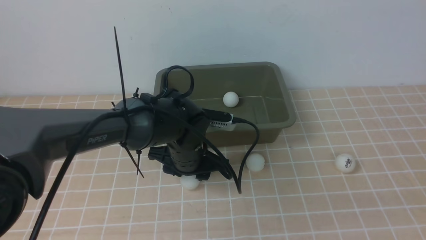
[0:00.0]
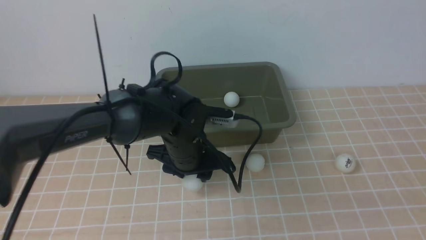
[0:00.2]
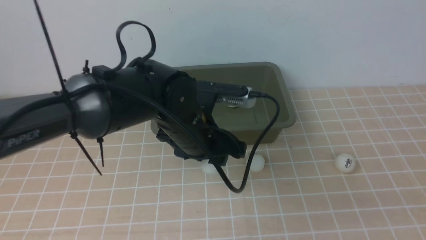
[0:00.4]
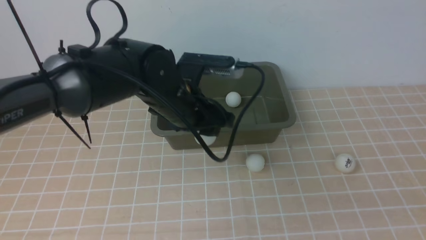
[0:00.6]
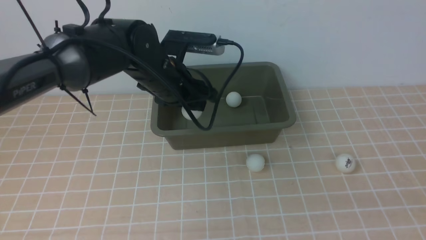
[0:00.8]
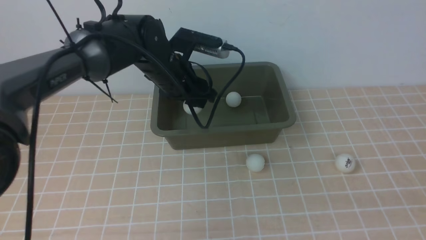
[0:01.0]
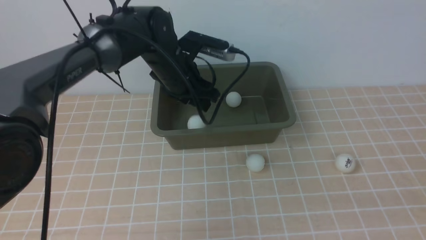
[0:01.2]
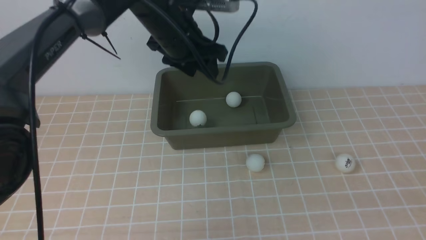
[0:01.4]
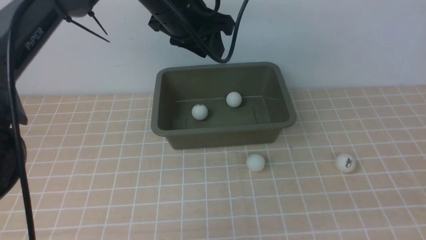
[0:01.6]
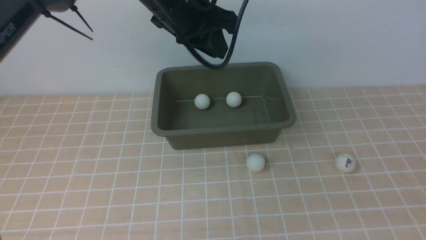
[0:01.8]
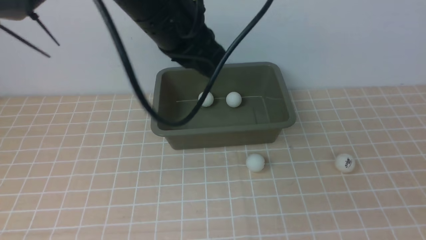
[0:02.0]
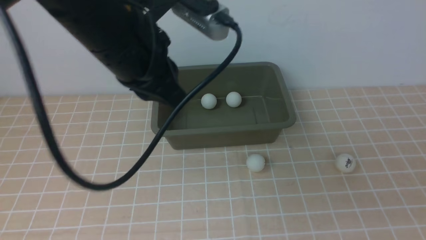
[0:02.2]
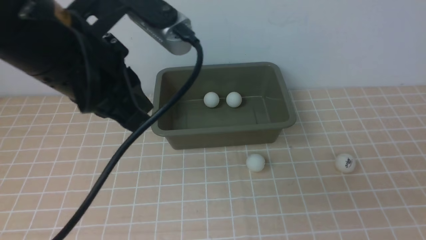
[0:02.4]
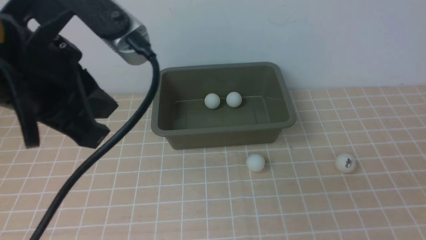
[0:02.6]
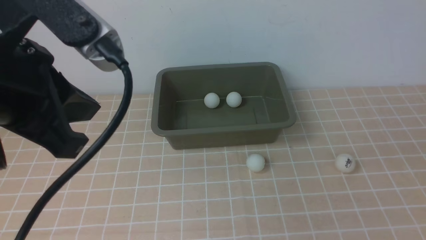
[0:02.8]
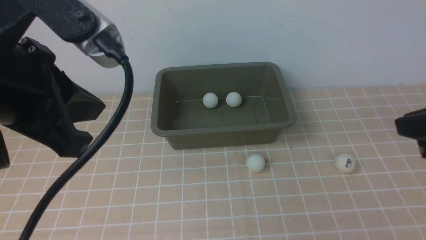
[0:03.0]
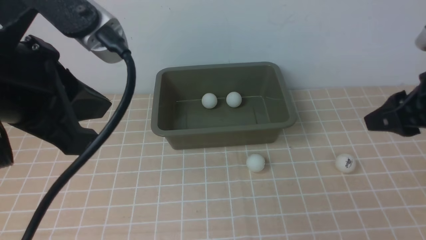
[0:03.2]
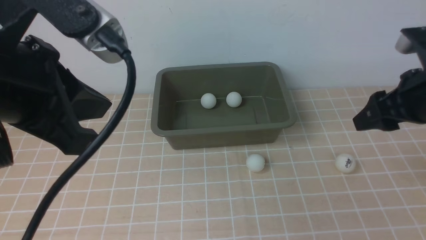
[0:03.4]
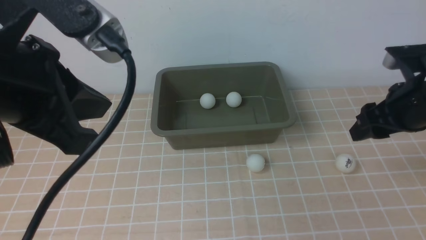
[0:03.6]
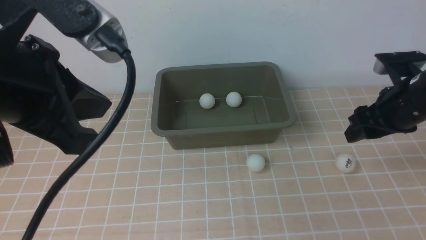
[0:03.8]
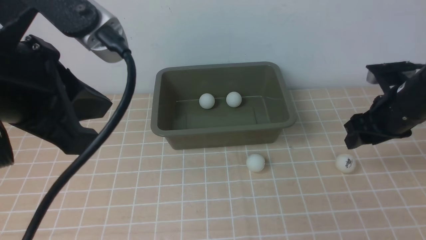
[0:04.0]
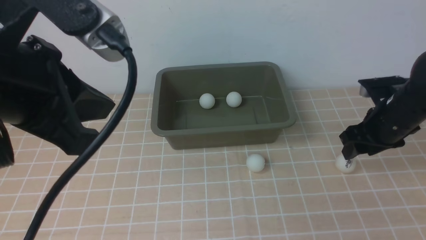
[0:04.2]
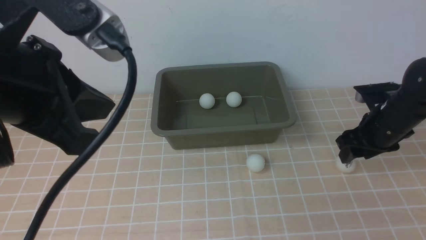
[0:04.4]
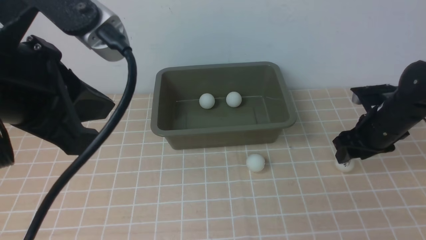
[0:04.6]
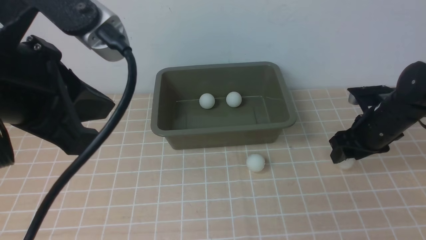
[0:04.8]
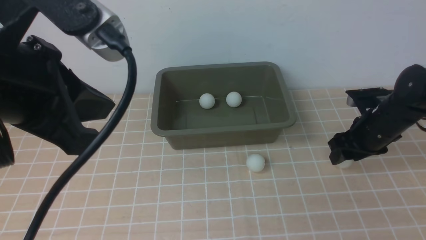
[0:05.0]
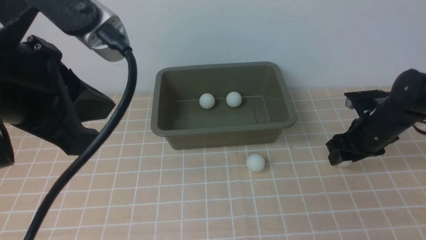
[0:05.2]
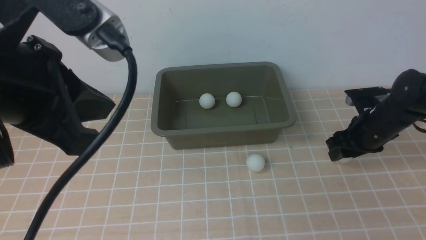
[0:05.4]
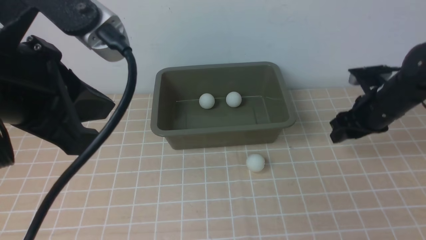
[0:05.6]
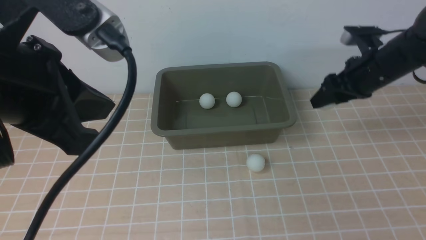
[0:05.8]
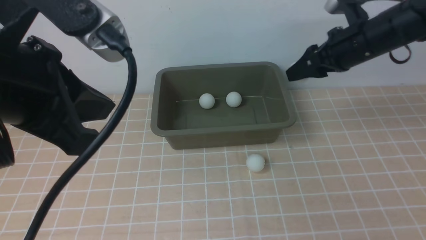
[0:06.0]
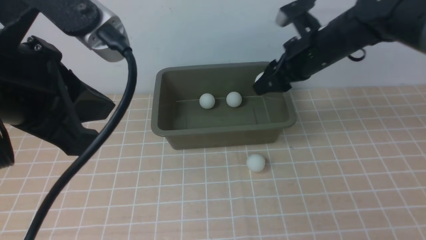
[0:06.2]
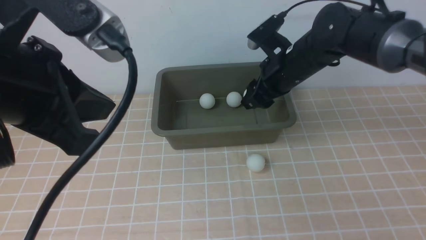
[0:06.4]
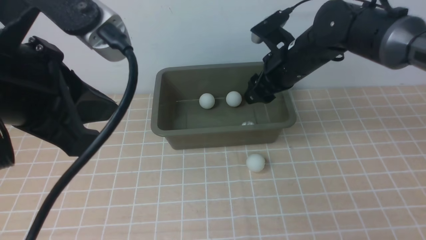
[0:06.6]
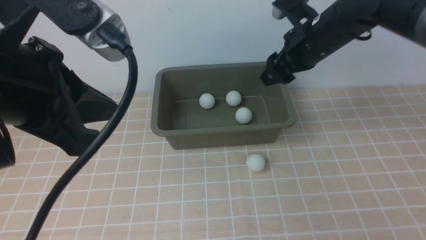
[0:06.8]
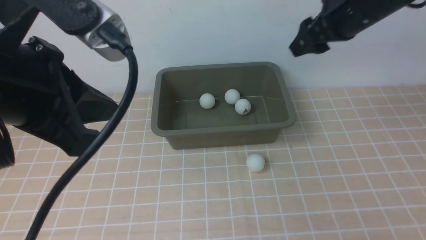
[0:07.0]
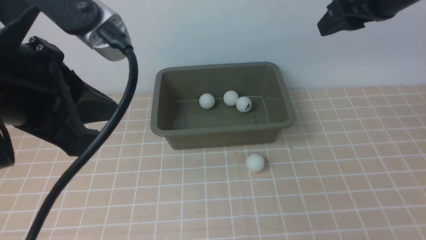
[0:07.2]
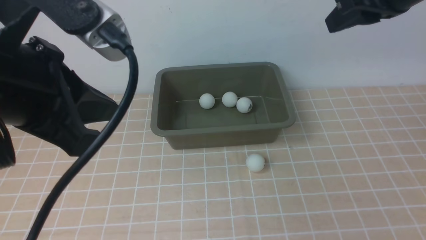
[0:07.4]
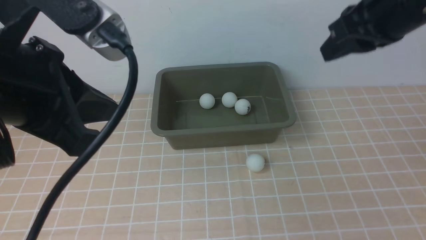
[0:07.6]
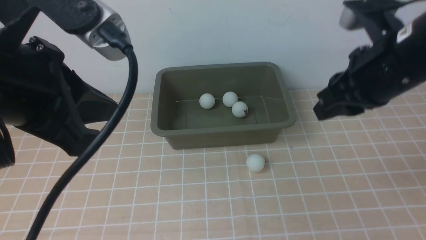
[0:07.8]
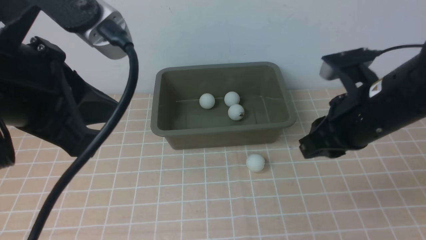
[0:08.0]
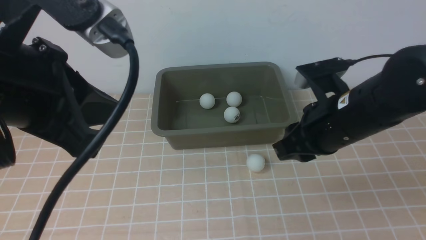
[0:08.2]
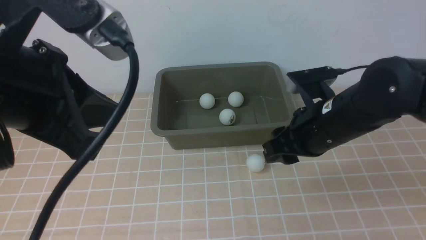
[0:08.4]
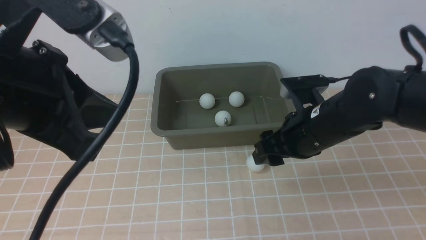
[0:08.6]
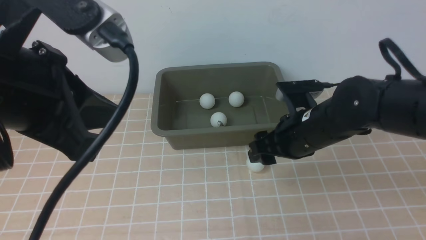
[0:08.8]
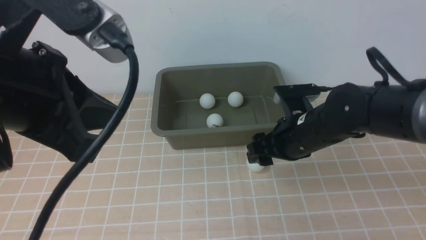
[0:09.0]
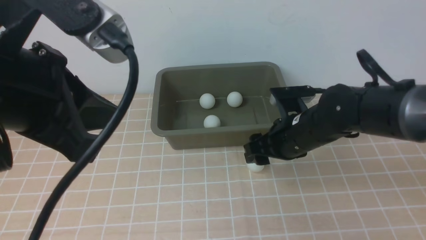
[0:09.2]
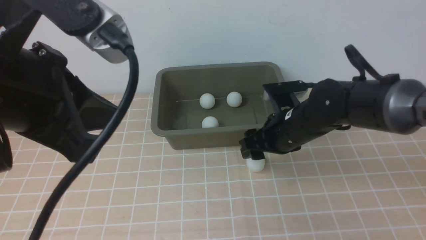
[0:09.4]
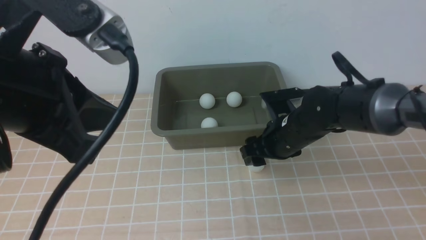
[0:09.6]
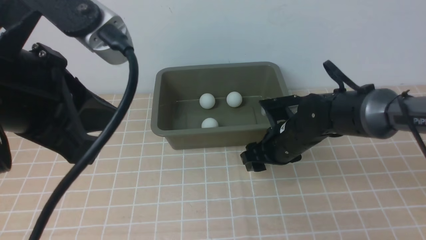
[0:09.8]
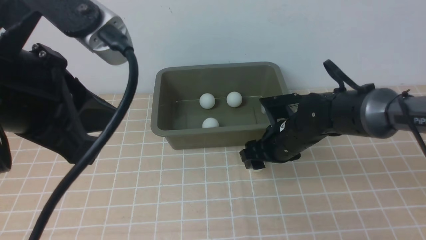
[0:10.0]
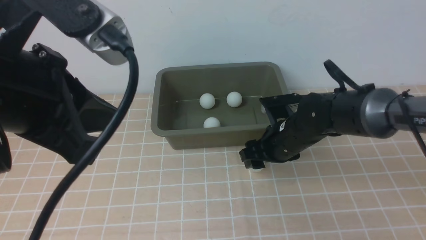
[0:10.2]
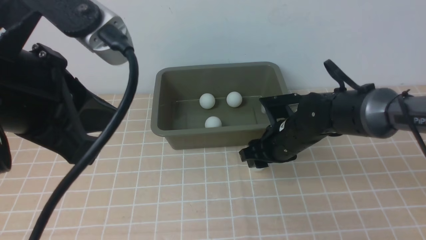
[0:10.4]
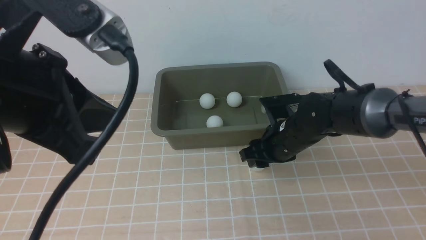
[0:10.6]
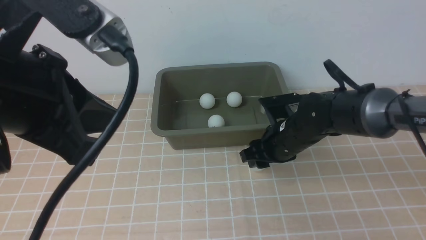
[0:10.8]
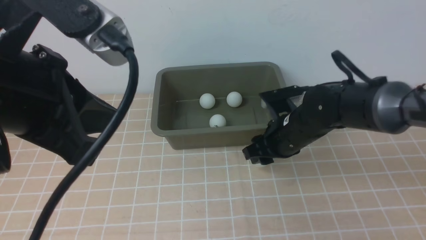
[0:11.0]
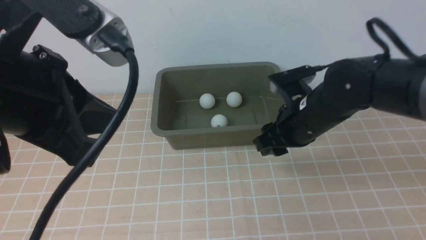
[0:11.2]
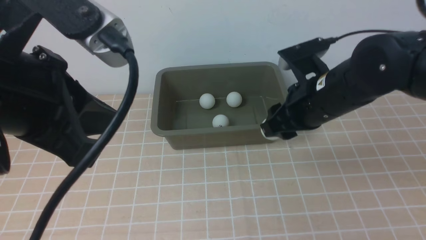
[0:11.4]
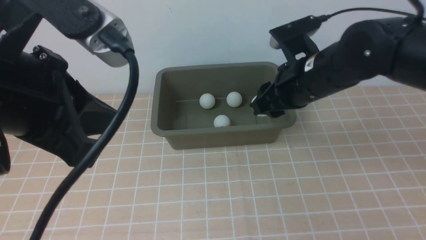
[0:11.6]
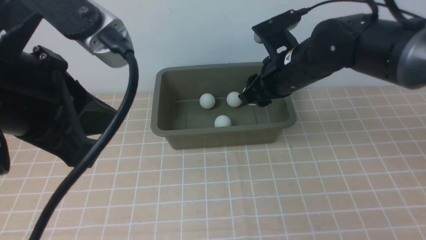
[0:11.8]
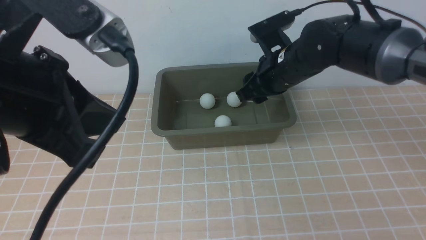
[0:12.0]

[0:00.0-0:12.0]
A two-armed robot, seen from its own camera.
Step, 0.4 to 1.4 s: use the left arm to put the table tennis ball into the box.
Step, 1.6 to 5.6 s: use the right arm to clamp the table tennis ball closest to it.
Step, 5.8 to 6.8 s: use the right arm to put the table tennis ball into the box.
Step, 7.0 to 11.0 s: use the right arm to clamp the table tennis ball closest to it.
0.0 to 1.6 s: The left gripper is displaced upward by roughly 20 cm.
1.6 to 3.0 s: The right gripper travels forward by about 20 cm, while the left gripper shifts about 25 cm backward and to the left, and closes its fingers.
3.0 to 4.4 s: The right gripper moves forward and downward, some 25 cm, and opens.
4.4 to 6.0 s: The right gripper travels upward, to the left and forward by some 15 cm.
6.0 to 7.6 s: The right gripper goes some 15 cm backward and upward, and closes up.
7.6 to 9.0 s: The right gripper moves downward, about 20 cm, and opens up.
9.0 to 10.4 s: The right gripper changes place by roughly 5 cm.
10.4 to 12.0 s: The right gripper travels upward by about 10 cm.

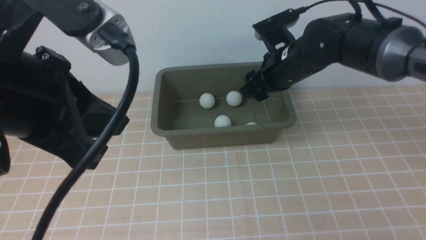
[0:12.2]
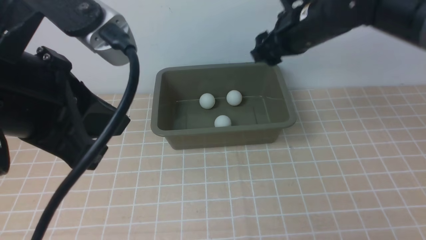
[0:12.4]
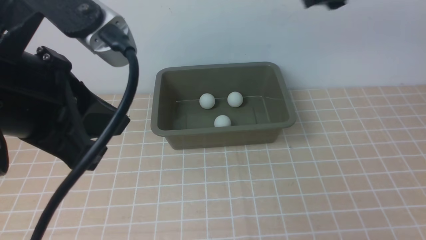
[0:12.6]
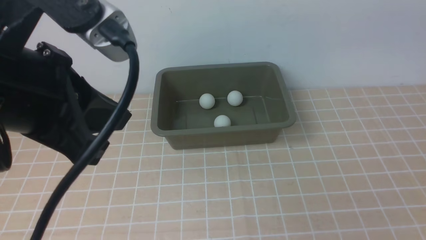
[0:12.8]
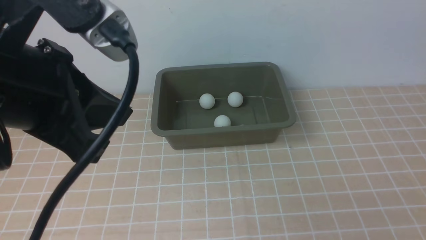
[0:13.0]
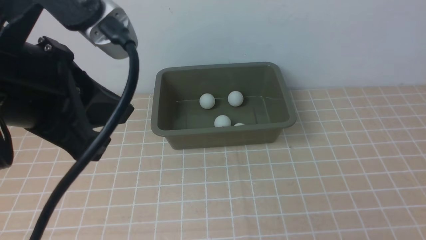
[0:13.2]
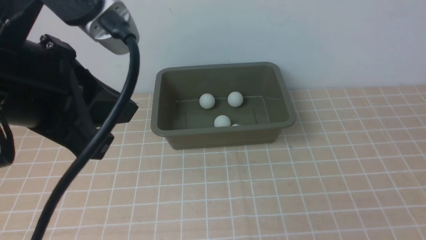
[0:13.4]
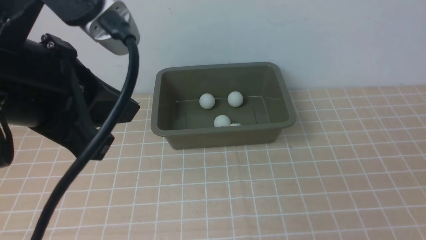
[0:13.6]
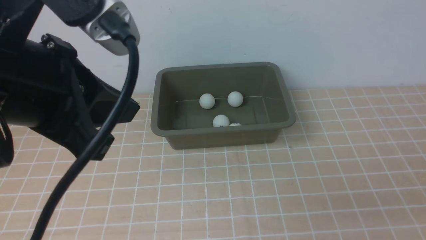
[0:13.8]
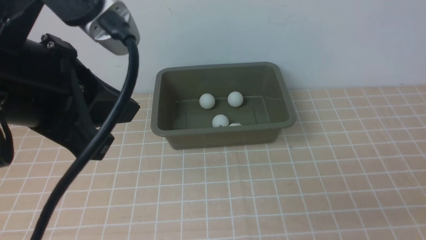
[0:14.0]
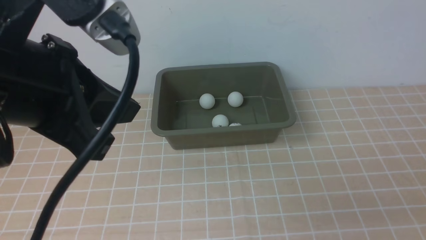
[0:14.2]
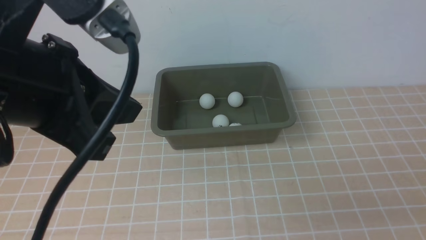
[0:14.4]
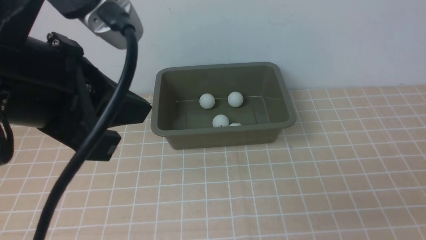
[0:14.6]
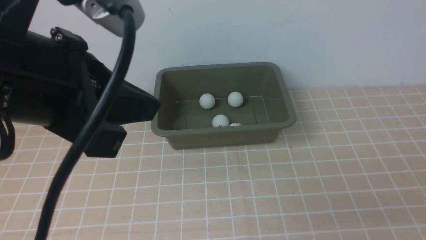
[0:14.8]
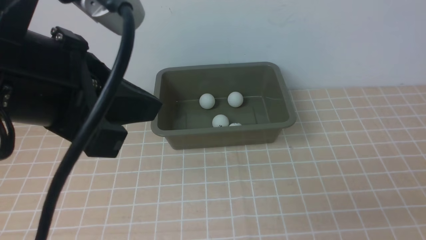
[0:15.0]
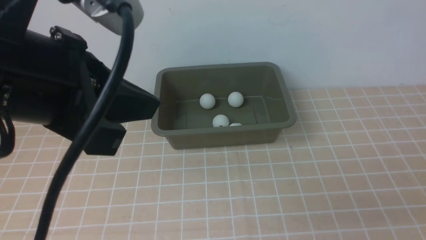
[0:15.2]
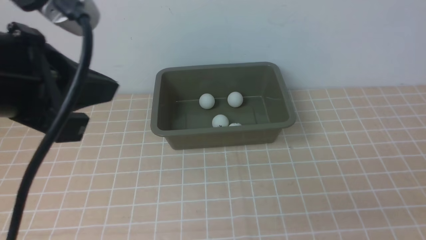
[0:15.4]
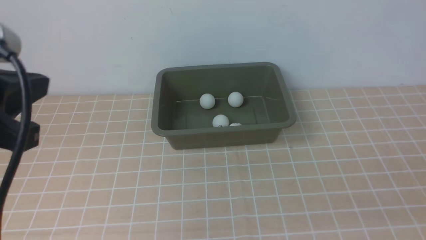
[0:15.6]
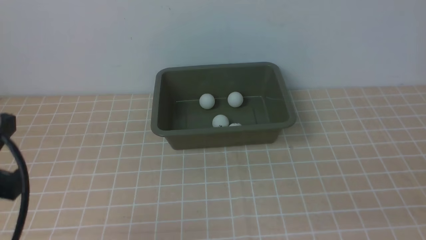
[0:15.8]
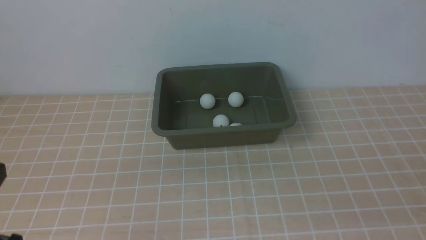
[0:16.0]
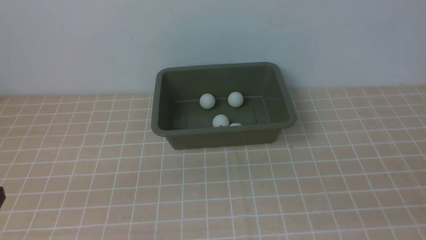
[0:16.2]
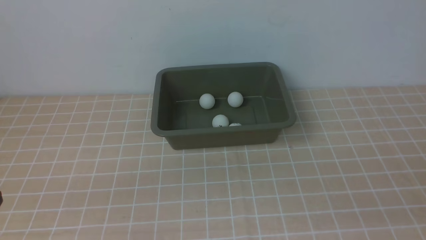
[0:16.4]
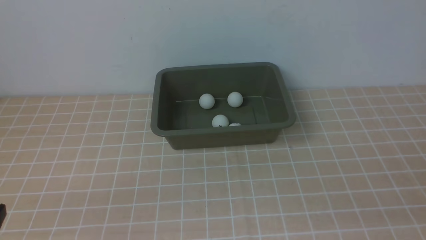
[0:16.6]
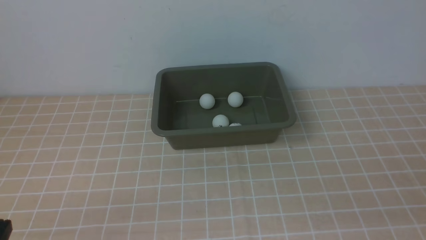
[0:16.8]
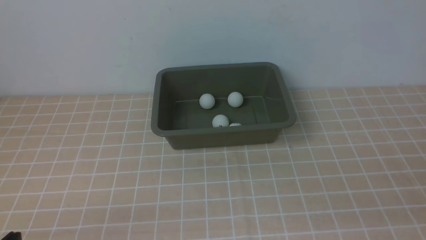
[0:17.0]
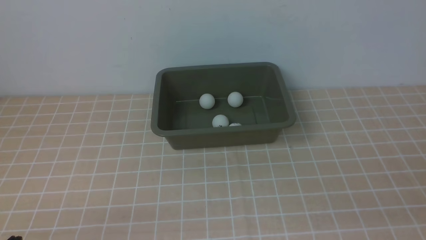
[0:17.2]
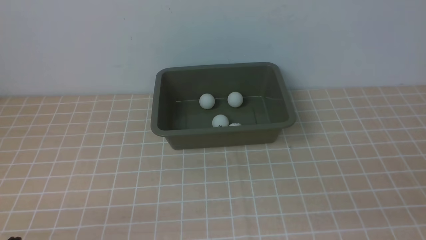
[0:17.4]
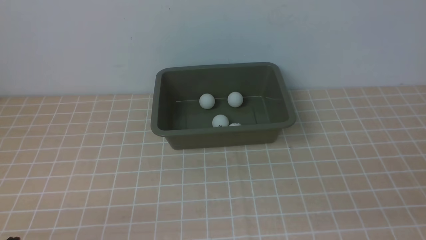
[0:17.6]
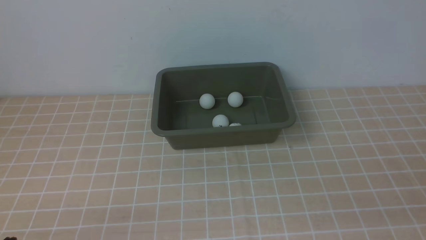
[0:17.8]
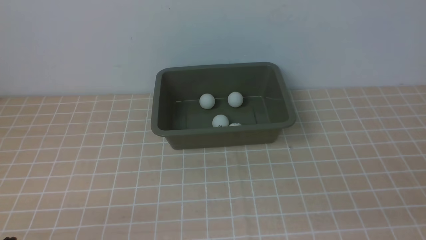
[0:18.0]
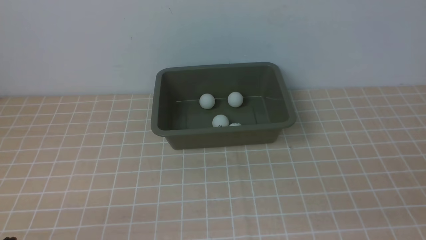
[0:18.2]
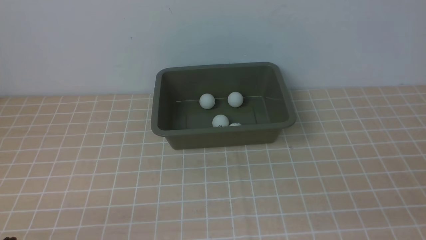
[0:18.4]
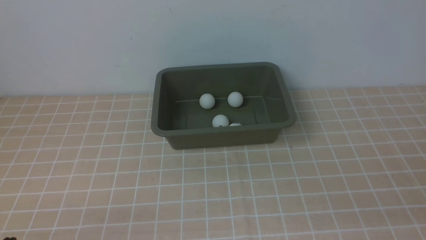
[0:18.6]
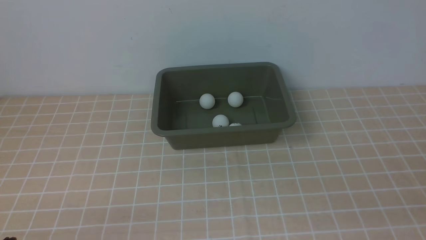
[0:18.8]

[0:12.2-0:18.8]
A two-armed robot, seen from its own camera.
12.2 to 13.8 s: The right gripper moves backward and to the right, about 40 cm, and closes up.
13.8 to 15.4 s: The grippers move only a little.
15.4 to 17.2 s: The left gripper moves downward and backward, approximately 25 cm.
